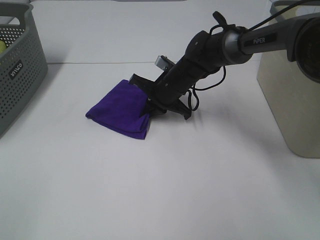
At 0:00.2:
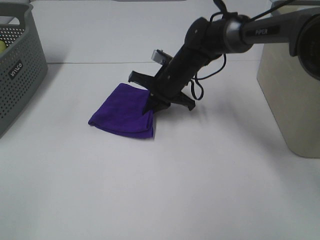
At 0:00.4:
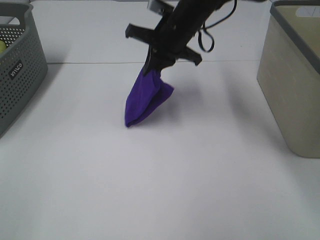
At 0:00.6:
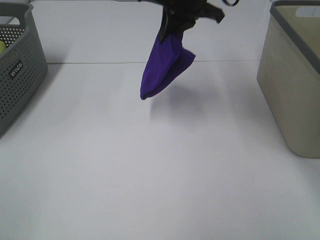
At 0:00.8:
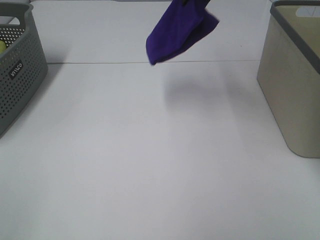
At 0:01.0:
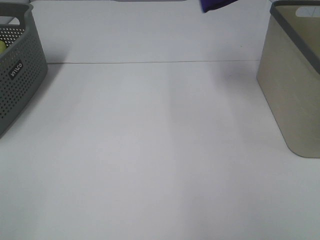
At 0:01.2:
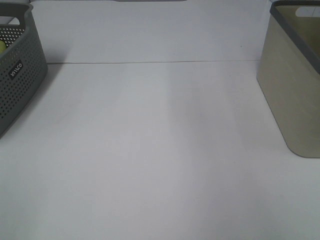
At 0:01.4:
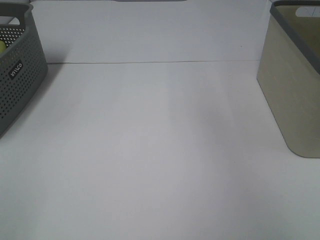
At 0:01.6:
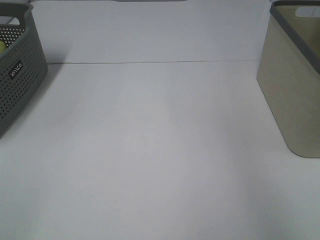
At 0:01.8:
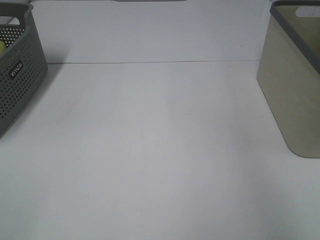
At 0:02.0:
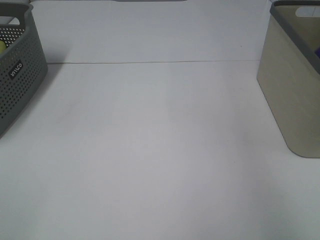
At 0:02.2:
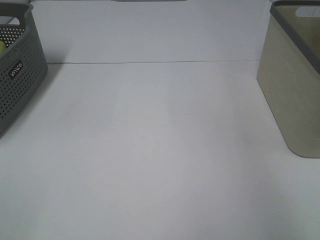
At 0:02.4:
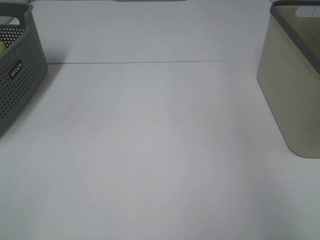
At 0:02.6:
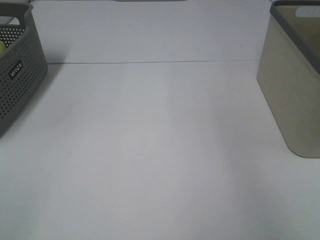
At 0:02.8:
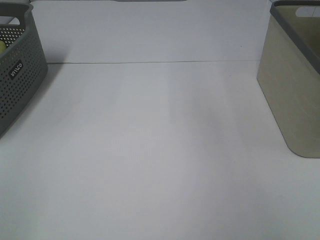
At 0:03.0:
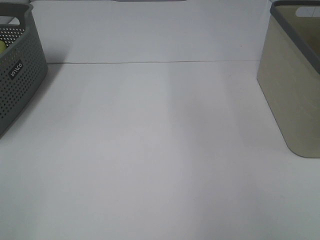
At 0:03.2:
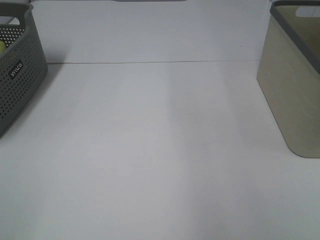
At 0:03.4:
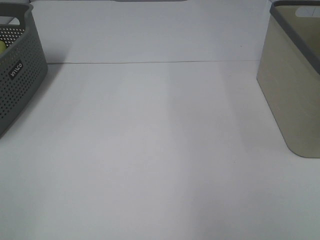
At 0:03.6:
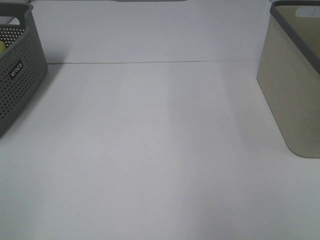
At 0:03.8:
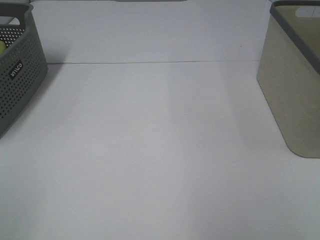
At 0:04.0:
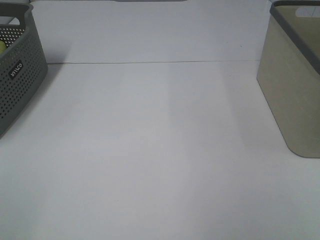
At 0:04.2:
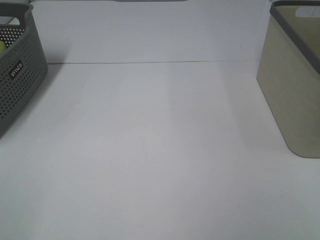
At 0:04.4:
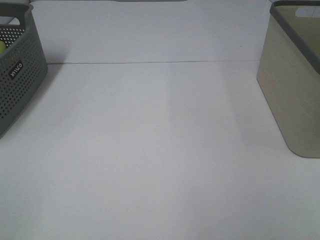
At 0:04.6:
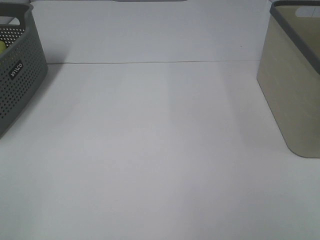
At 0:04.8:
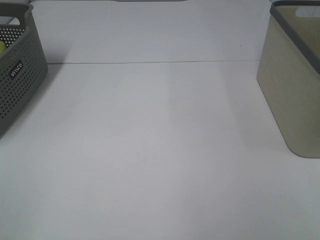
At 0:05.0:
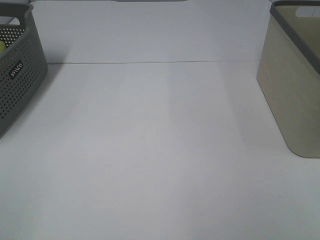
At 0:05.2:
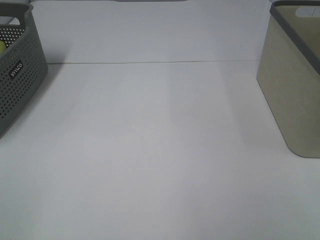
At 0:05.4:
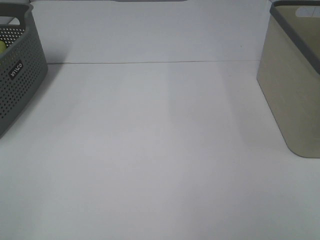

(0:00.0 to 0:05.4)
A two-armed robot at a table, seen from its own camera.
Step, 0:00.0 - 0:02.2: Right hand: place the purple towel in right basket.
0:00.0 - 0:01.4: The right gripper moves upward and to the right, about 50 cm.
